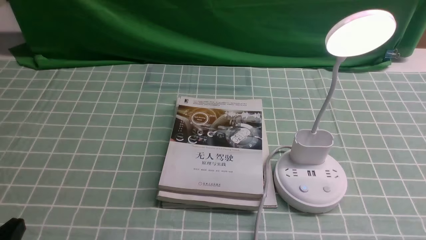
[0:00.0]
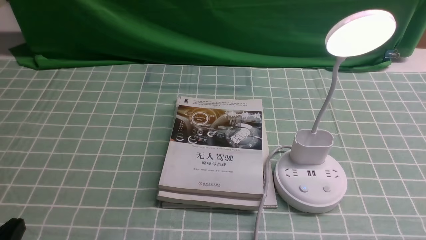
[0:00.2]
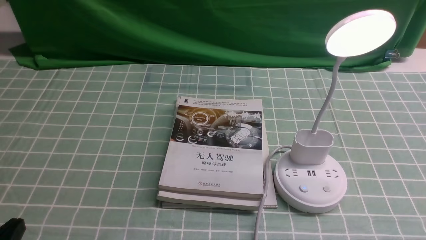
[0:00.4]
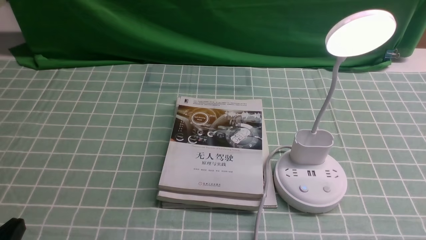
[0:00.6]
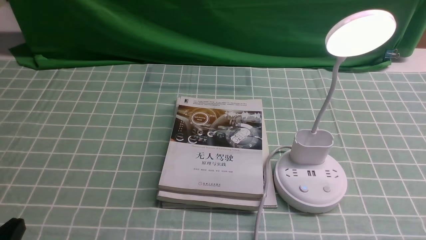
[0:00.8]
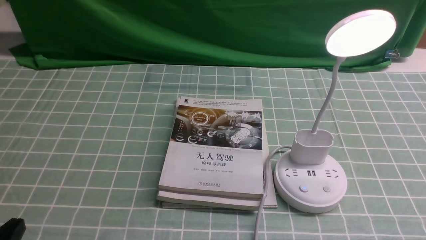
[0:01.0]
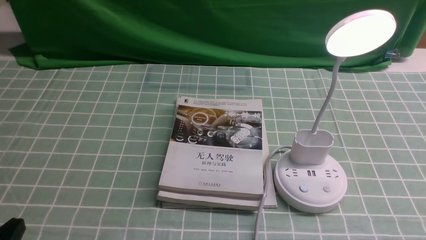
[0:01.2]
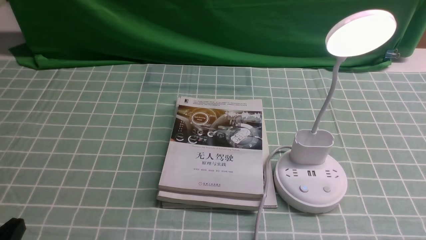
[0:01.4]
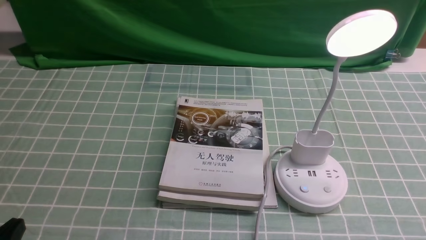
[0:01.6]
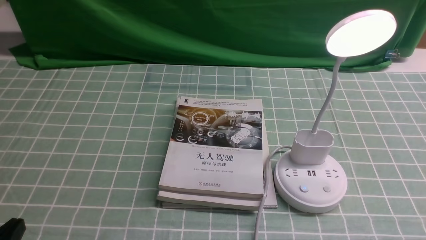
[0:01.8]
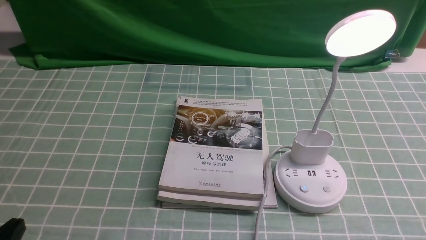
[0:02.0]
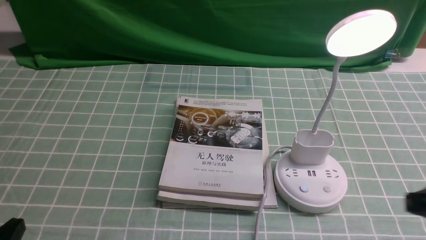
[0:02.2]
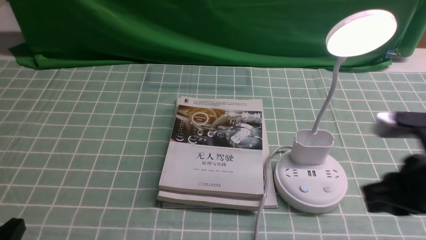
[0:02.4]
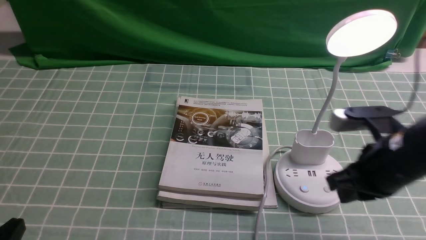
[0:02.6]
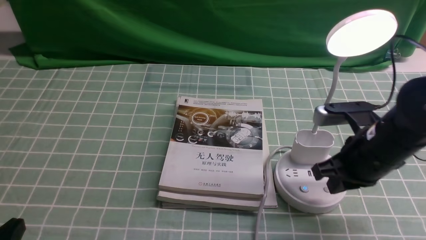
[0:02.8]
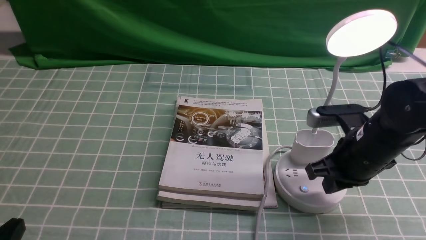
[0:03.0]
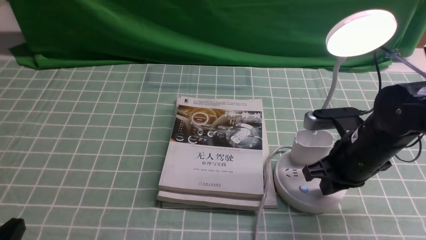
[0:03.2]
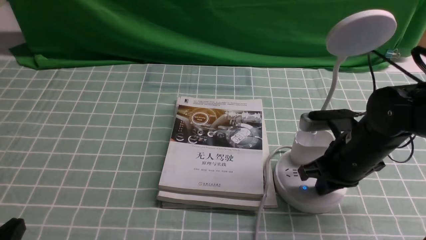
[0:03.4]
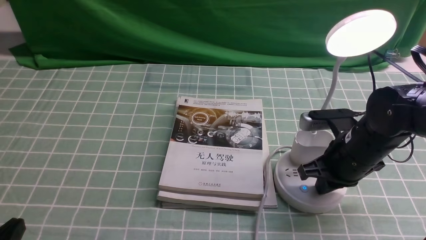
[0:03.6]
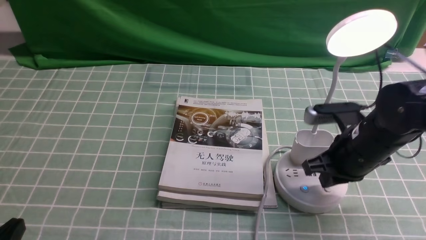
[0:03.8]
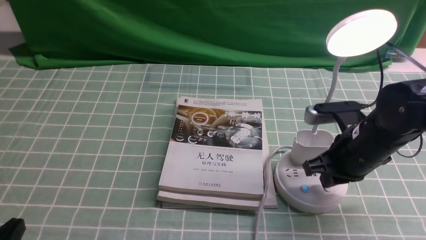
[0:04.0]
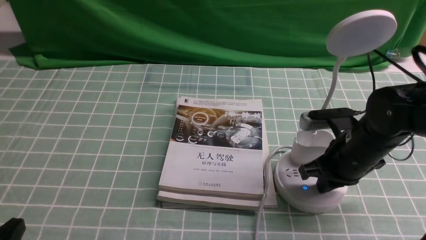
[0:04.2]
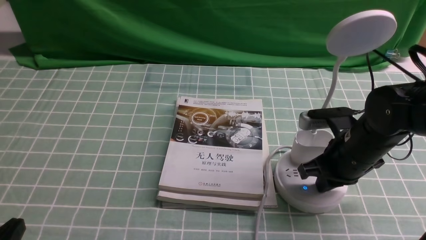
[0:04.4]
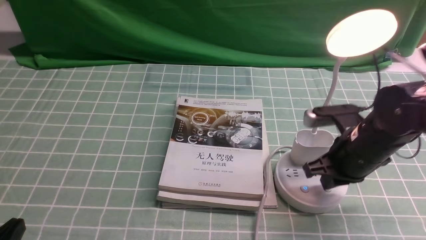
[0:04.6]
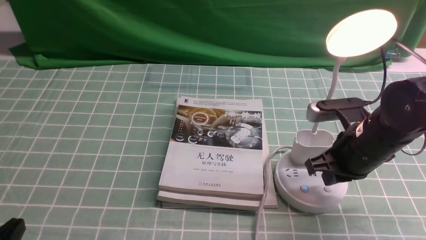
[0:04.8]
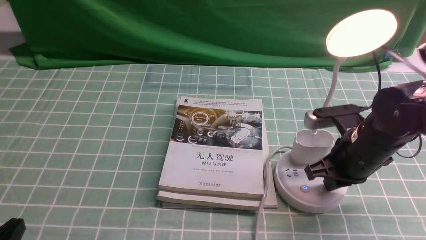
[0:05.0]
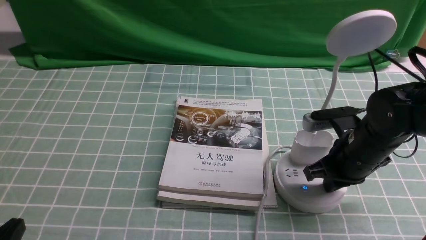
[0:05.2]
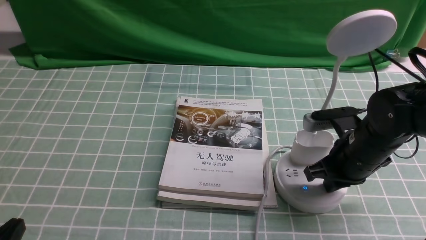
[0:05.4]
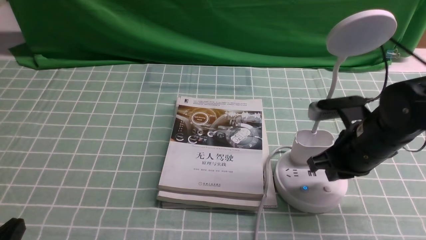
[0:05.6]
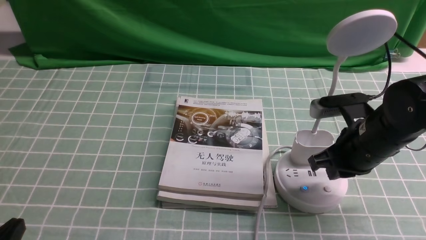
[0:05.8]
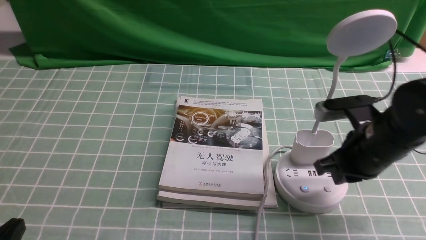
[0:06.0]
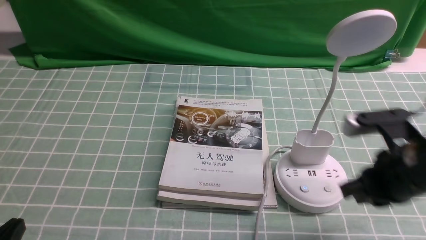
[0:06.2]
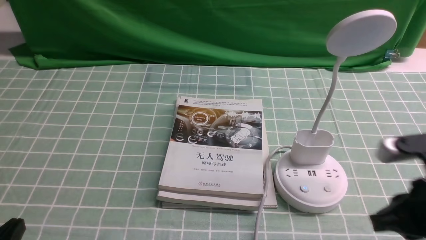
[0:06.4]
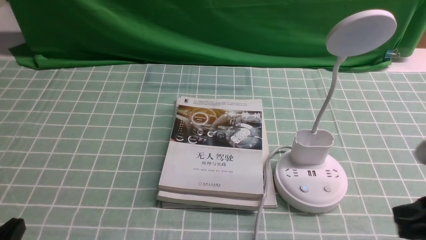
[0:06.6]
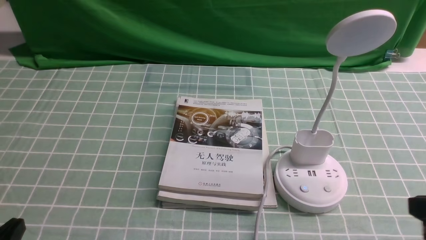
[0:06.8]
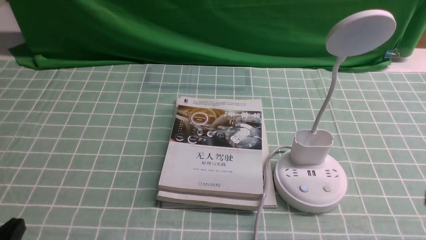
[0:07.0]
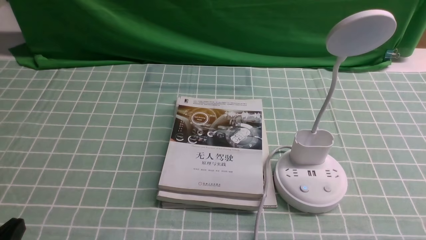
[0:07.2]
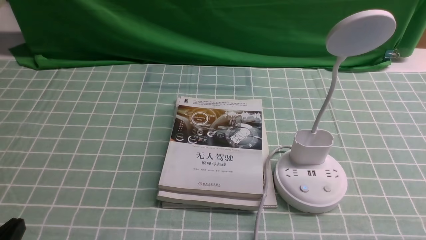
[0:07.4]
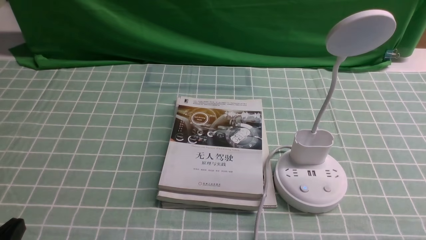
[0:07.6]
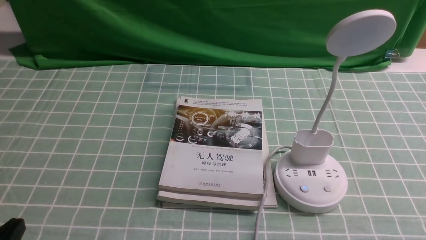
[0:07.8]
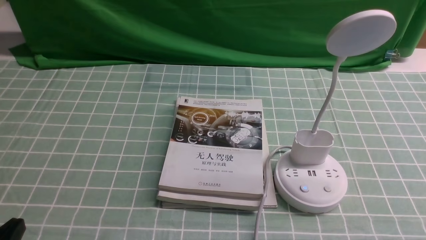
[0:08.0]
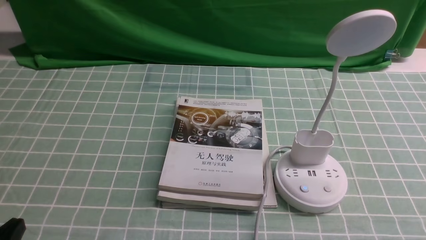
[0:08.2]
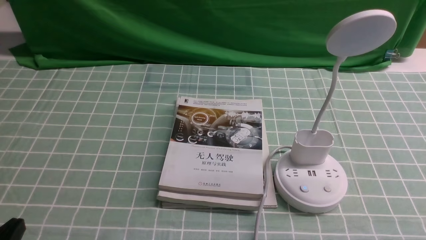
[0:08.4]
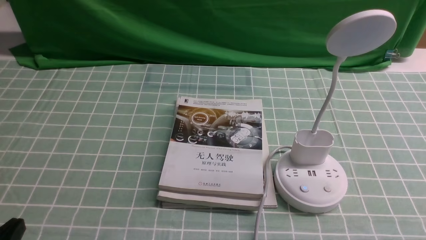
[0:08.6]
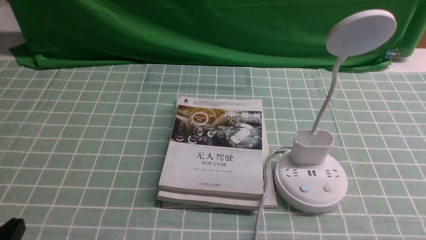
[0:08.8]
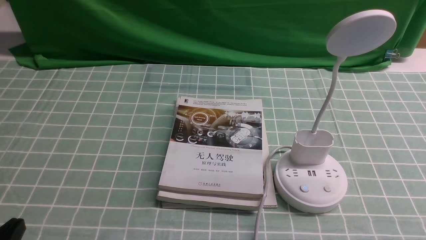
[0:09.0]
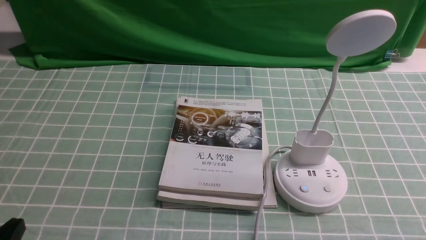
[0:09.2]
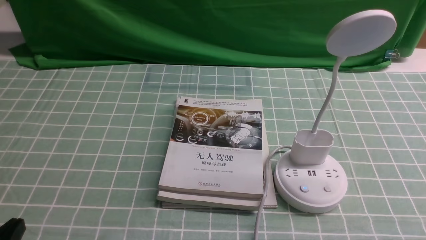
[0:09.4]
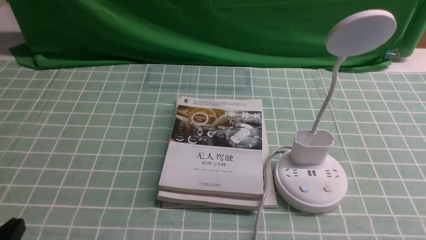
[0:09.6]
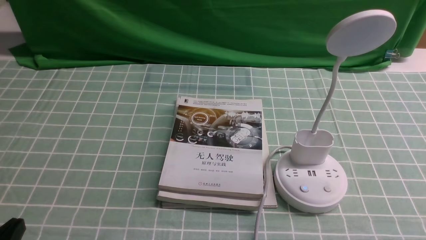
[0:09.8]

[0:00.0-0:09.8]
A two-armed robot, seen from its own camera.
Task of the whole recording: turn off the desk lamp on the blue coffee tablecloth by hand.
Step, 0:00.0 to 0:05.4: use the right arm to press the button switch on the lamp holder.
0:01.4 to 0:02.8: The right gripper is displaced forward and to the left by roughly 25 cm, and closes up.
0:02.8 to 0:05.6: There are only small adjustments of the grippers.
0:05.6 to 0:07.0: The right gripper shifts about 20 cm backward.

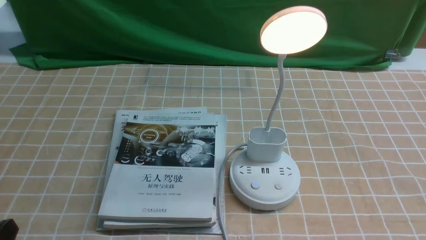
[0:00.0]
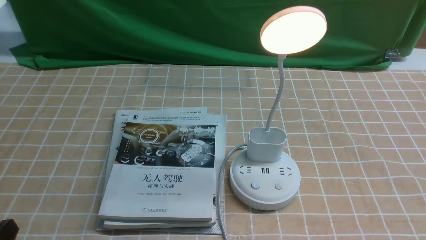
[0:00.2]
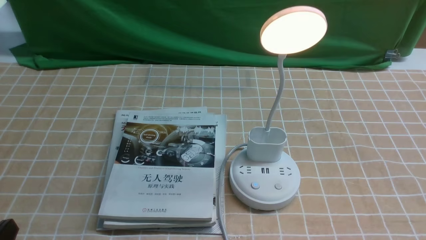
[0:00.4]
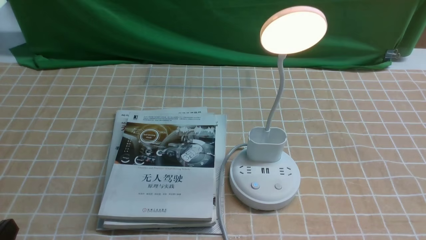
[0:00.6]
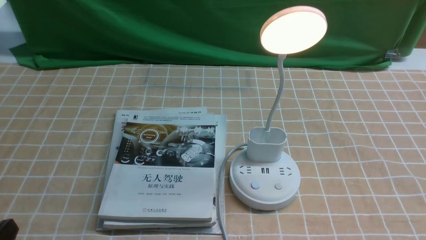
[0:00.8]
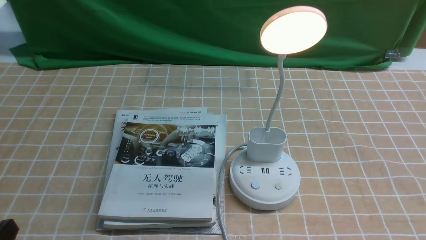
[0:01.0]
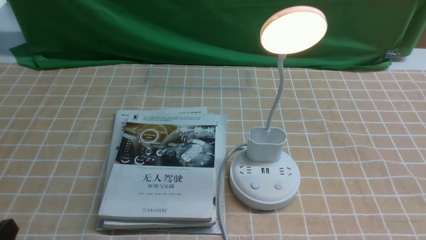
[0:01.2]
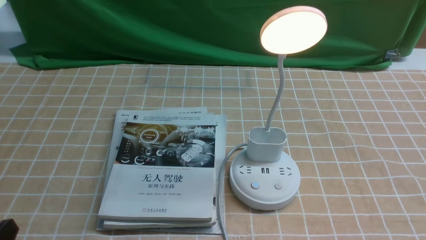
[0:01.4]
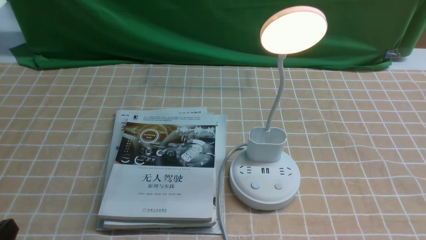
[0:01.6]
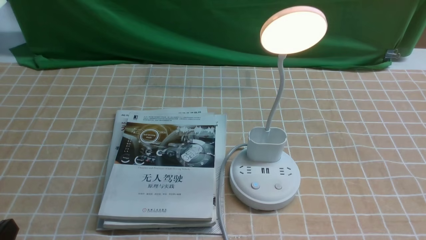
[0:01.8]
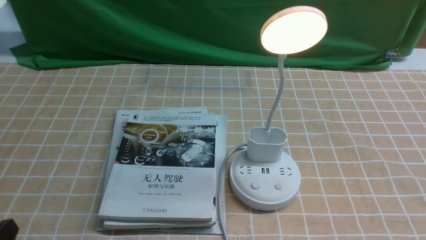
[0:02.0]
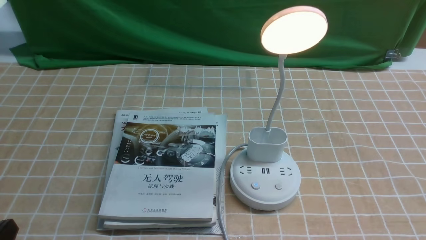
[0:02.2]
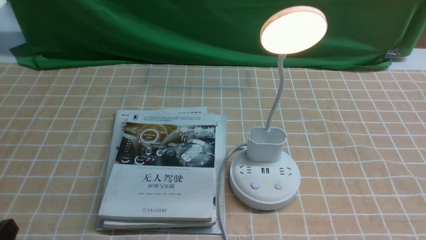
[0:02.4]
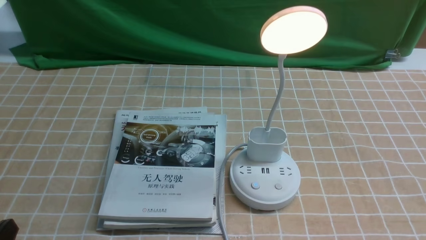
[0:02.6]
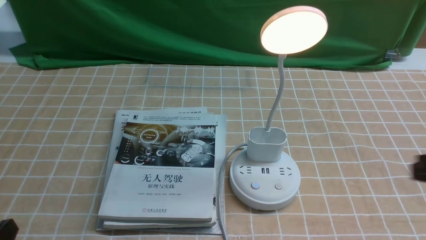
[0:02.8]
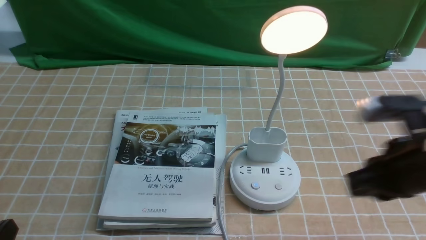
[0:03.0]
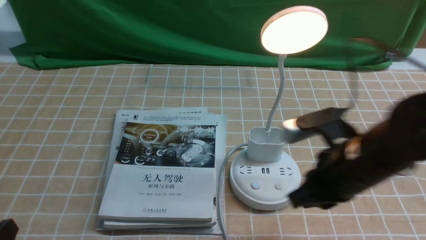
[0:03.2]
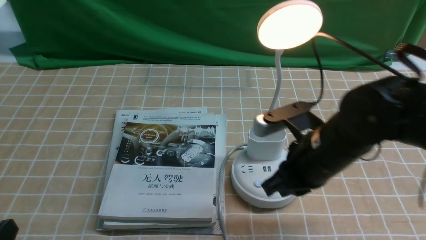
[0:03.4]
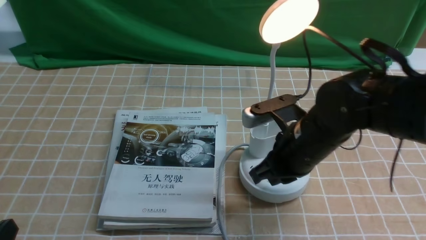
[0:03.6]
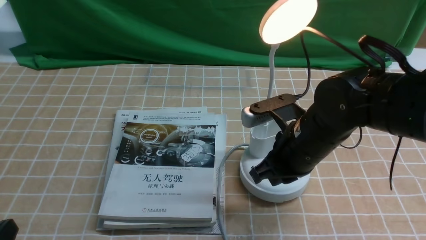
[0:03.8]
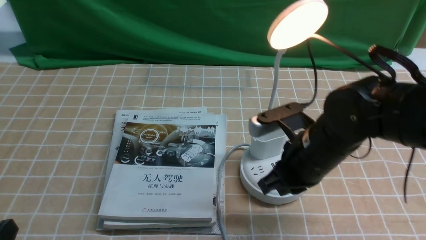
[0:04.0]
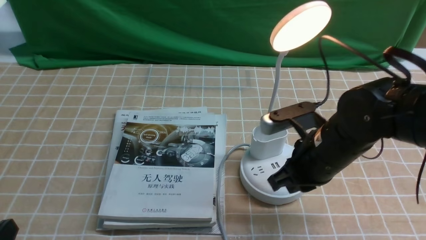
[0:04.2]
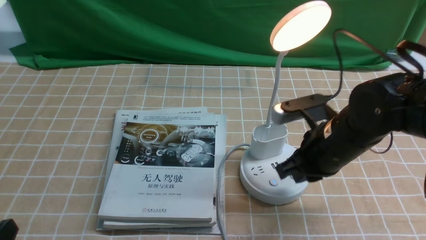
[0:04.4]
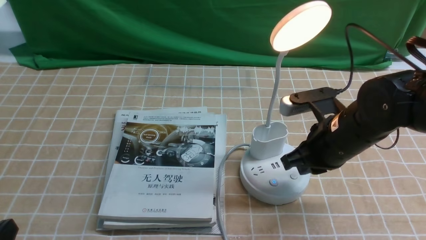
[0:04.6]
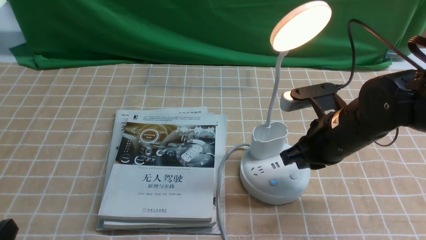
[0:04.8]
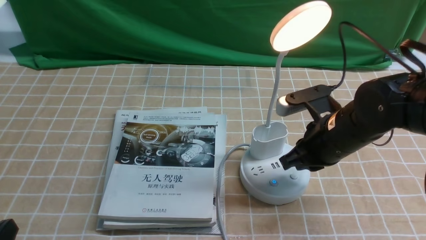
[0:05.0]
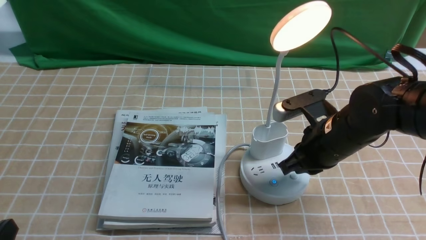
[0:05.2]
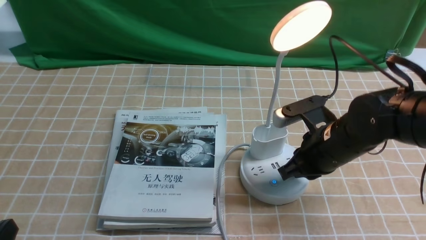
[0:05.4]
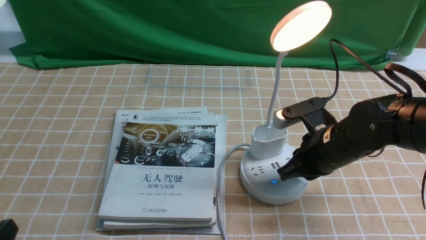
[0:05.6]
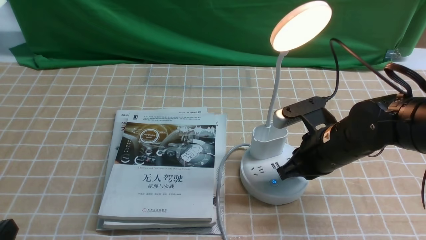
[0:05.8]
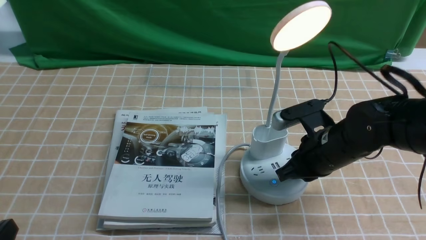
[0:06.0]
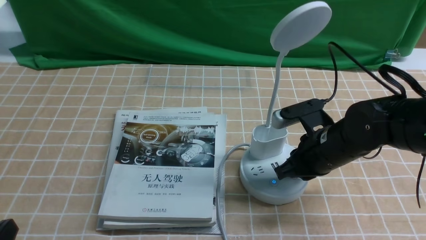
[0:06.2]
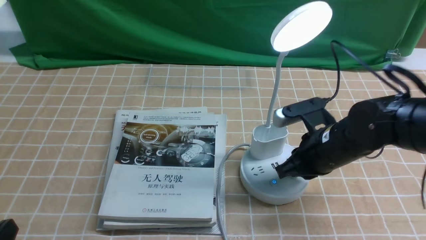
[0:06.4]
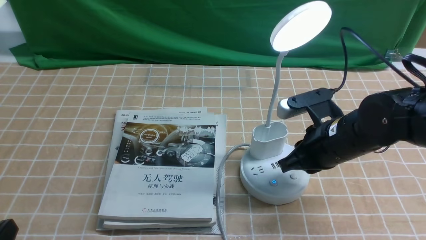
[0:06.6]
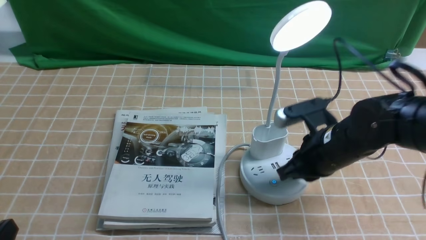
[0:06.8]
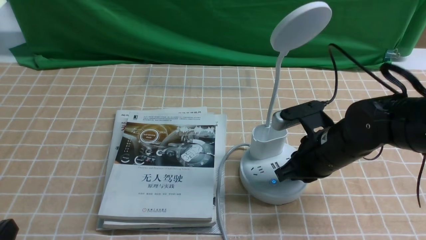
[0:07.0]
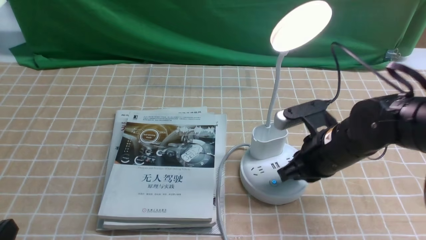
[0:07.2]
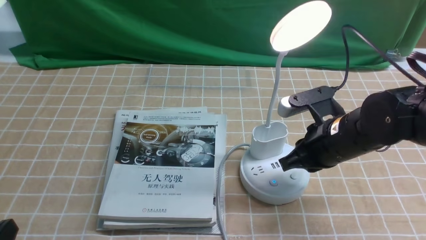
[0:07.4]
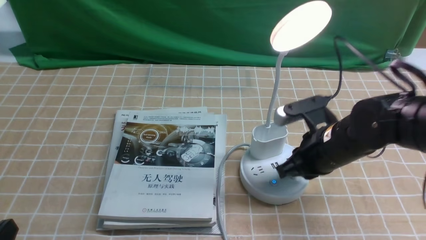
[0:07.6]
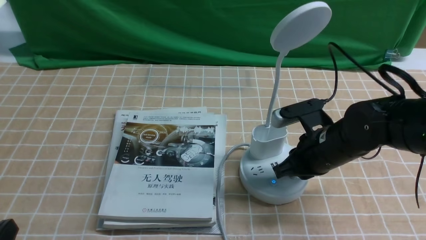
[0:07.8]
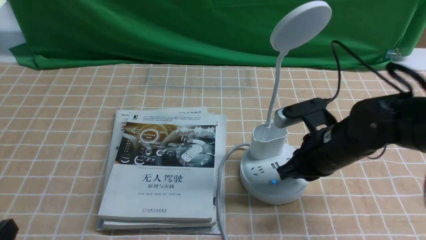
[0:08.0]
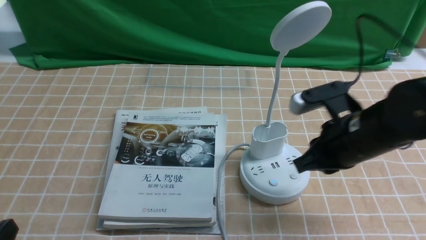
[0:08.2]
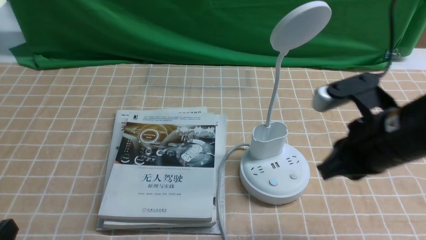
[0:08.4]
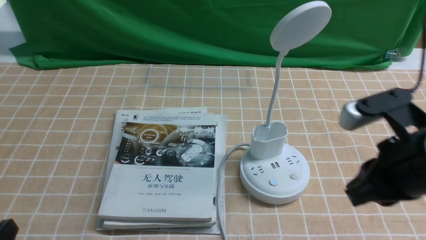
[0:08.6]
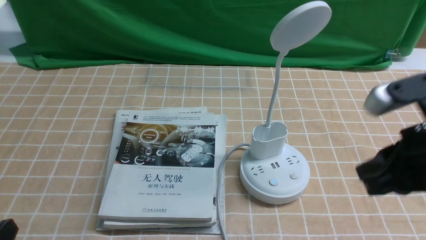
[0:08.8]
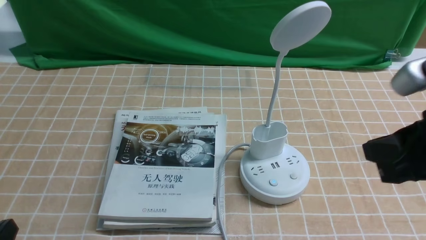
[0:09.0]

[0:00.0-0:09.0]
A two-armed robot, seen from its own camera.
Task of the whole recording: turn off the desk lamp on the light coffee tablecloth by hand.
Step, 0:00.0 to 0:08.0: use the right arm to press the button switch on the lamp holder.
0:01.6 to 0:03.0: The right gripper is displaced forward, to the left and upward by roughly 20 cm, and closes its fingers.
0:03.0 to 0:04.4: The right gripper moves to the left, forward and downward, some 10 cm.
0:04.4 to 0:07.6: There are only small adjustments of the grippers.
0:07.6 to 0:09.0: The right gripper is displaced upward, backward and to the right by some 20 cm.
